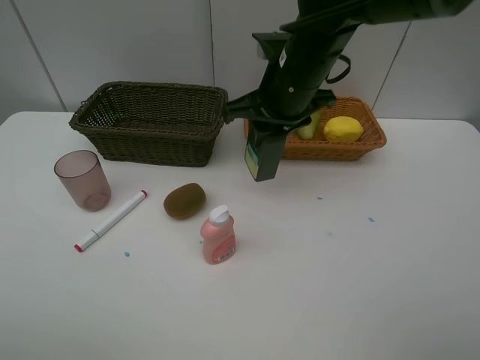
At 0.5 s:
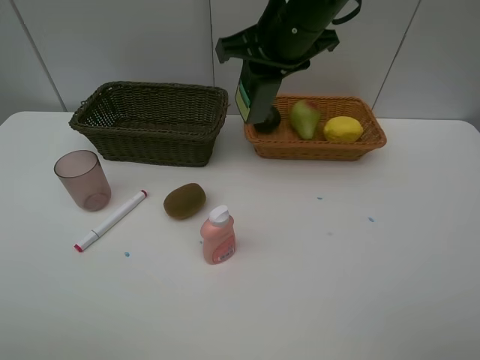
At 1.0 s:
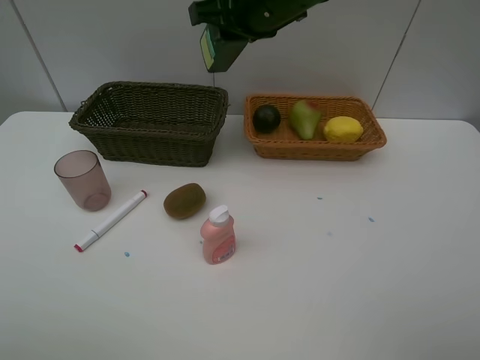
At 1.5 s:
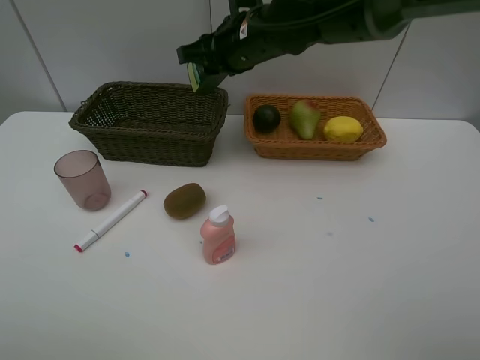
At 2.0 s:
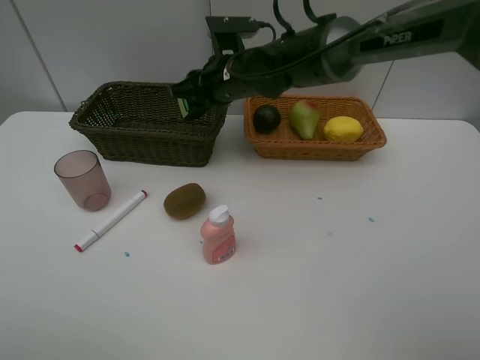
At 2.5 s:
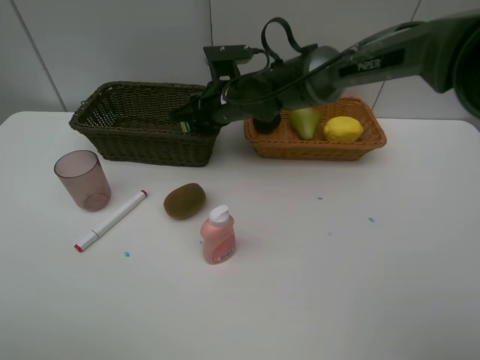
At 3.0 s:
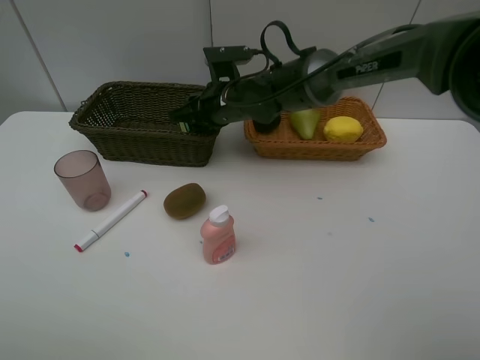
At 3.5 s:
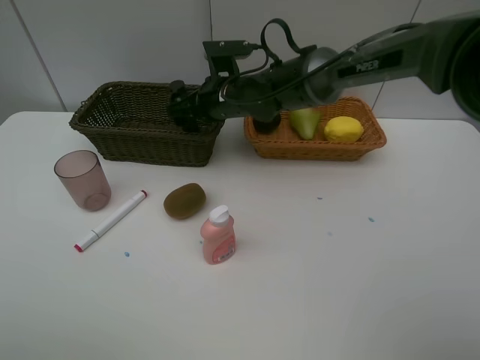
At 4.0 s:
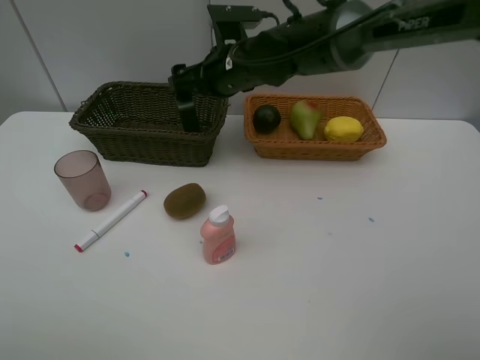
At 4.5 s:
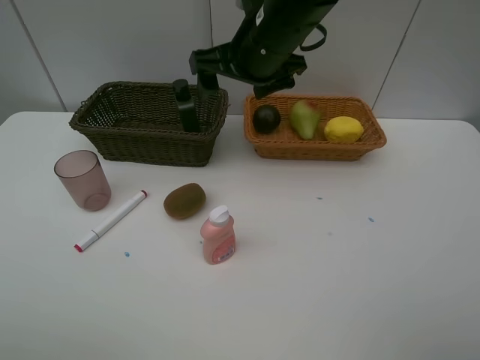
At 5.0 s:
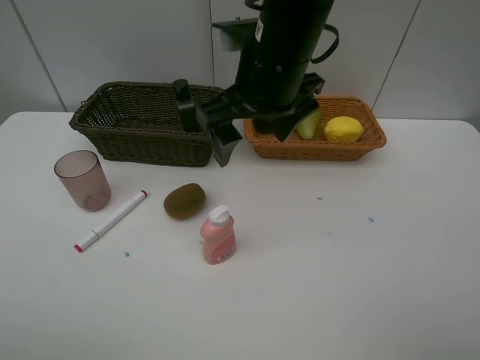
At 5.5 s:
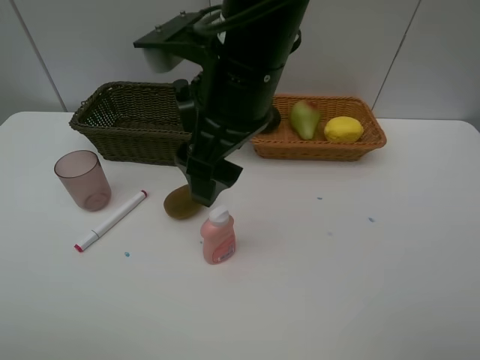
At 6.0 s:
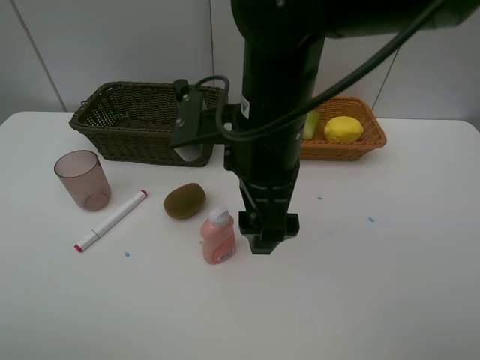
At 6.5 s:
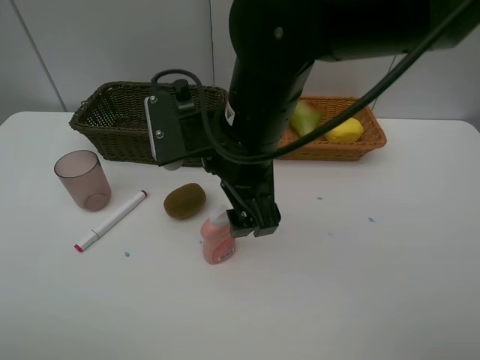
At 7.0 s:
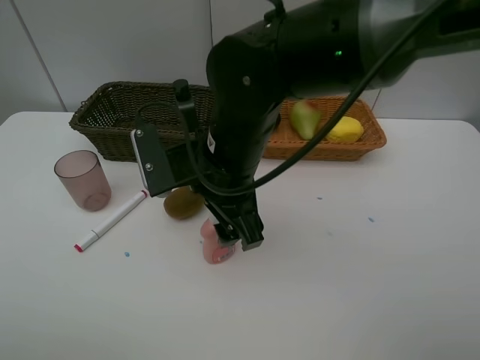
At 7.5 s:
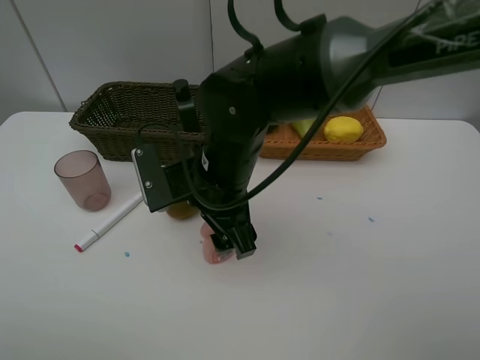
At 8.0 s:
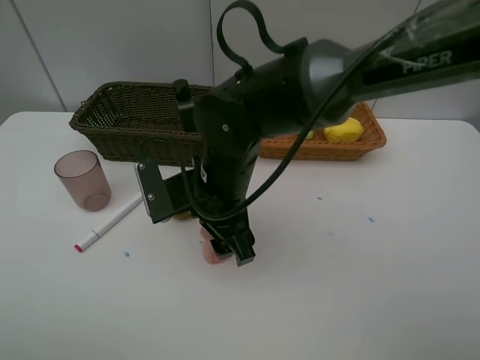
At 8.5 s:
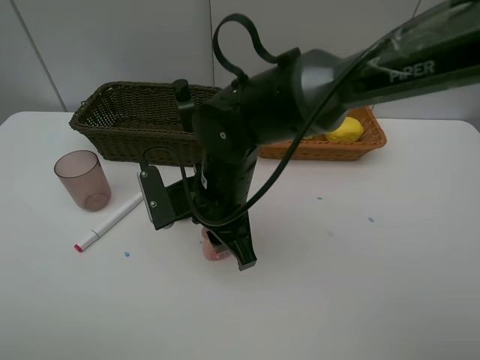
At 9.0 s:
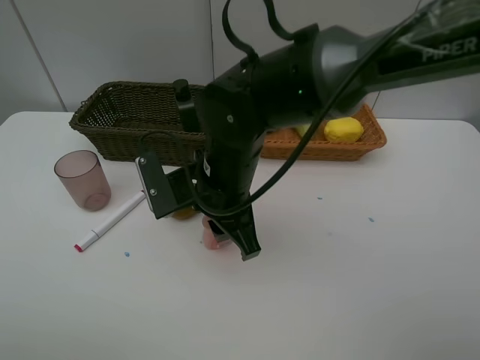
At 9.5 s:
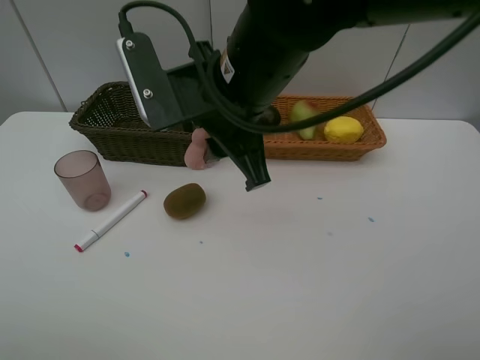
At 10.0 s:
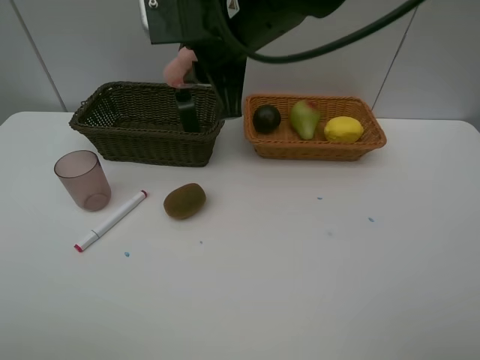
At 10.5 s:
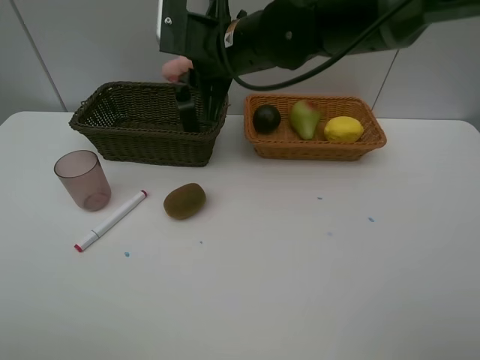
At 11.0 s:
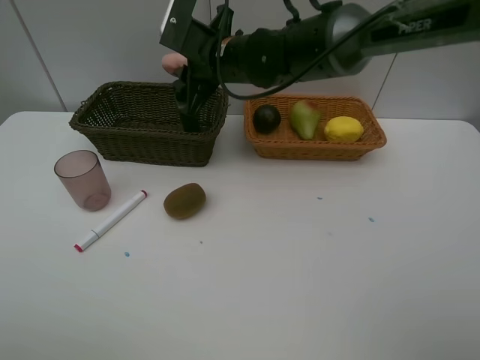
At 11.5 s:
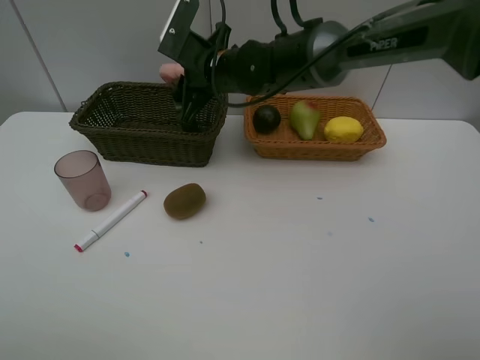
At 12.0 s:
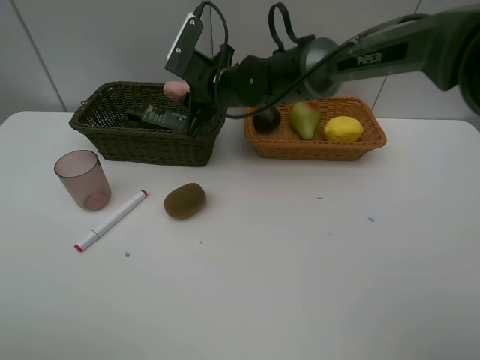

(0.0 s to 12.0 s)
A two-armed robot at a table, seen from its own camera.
Task of the whole recording: Place multiple objects separately in different baskets.
Step, 0.0 s - 4.0 s: Place the hard facial cleanser in the dark basket with right gripper.
Step, 4.5 s - 8.5 s: Pick up the laundry detergent with right gripper.
0.0 s - 2.0 s: The right gripper moves forward, to the left and downward, some 10 cm.
2.0 s - 4.0 s: The right gripper opens.
4.0 s - 6.0 s: The right gripper goes roughly 20 cm backward.
6.0 s - 8.0 s: The right gripper heads downward, covering roughly 10 cm, and closes.
8.0 s - 10.0 s: The right gripper heads upward, covering about 15 cm, and closes its fingers.
10.0 s - 12.0 s: The right gripper goes some 15 cm downward and forward.

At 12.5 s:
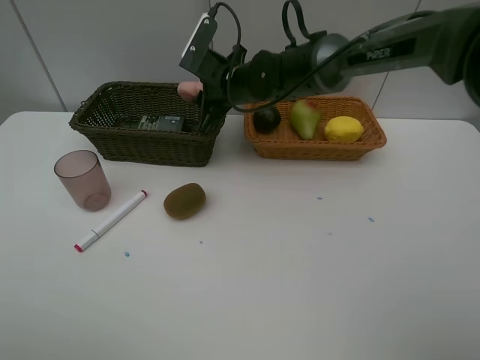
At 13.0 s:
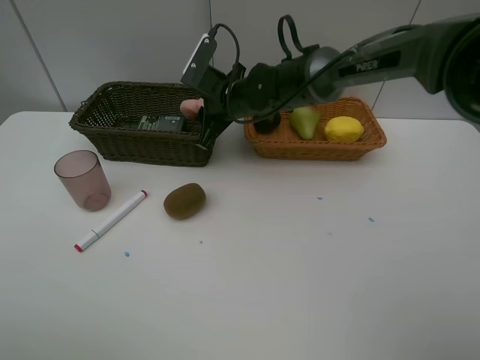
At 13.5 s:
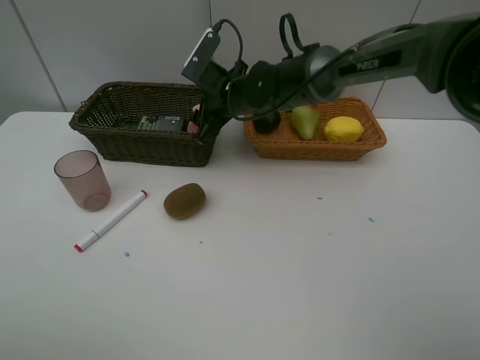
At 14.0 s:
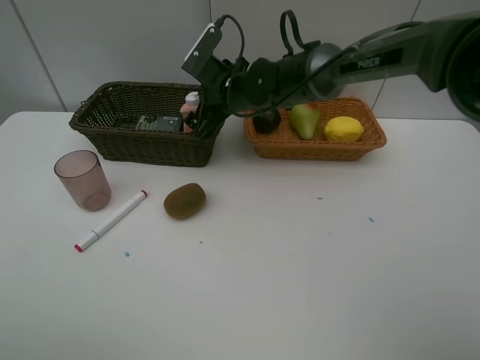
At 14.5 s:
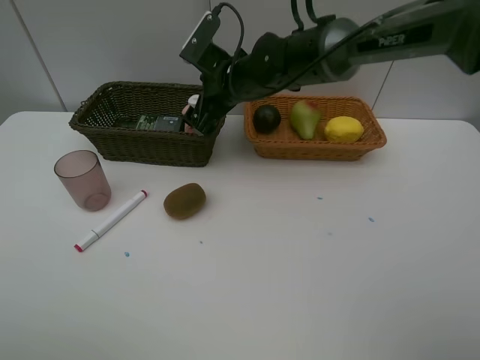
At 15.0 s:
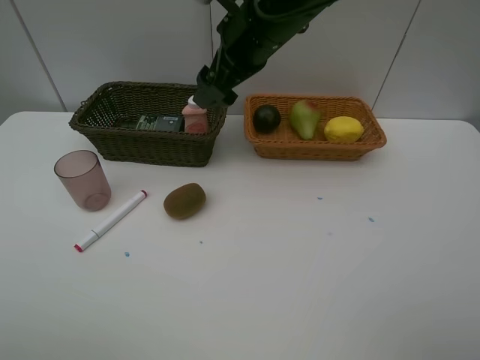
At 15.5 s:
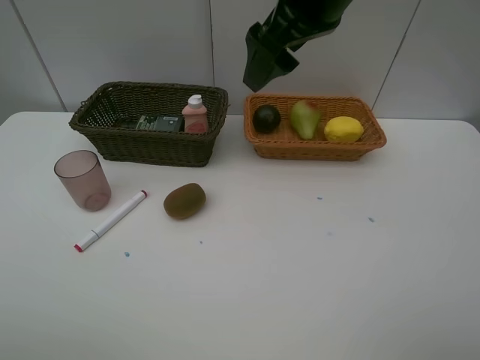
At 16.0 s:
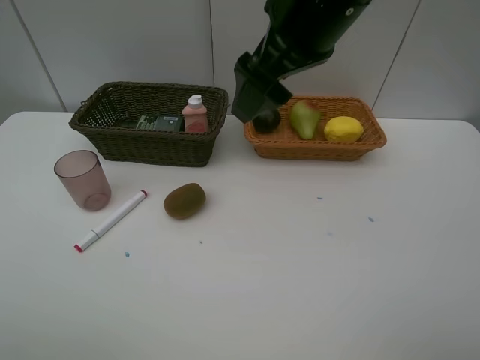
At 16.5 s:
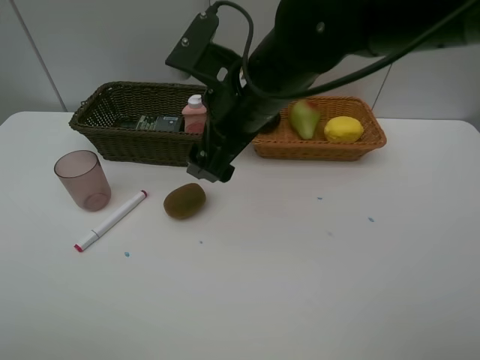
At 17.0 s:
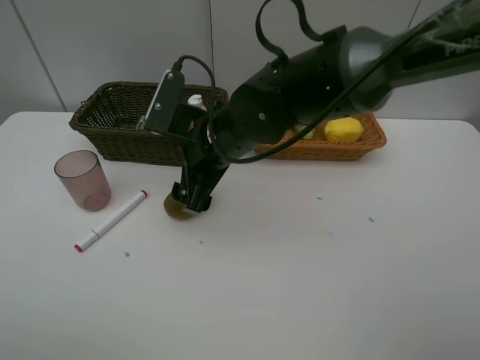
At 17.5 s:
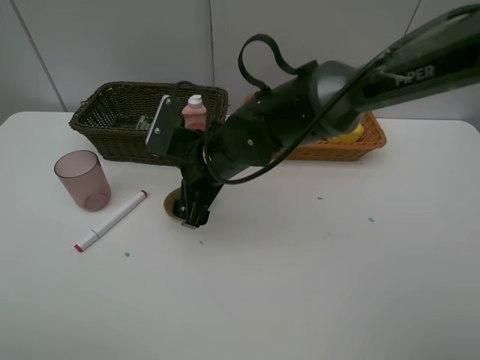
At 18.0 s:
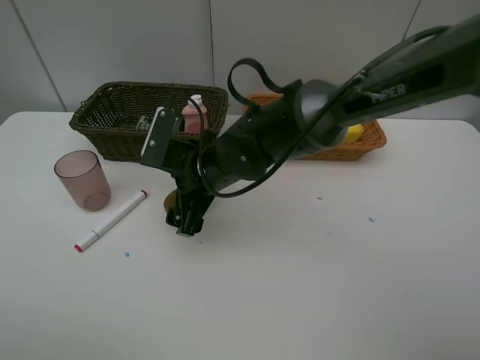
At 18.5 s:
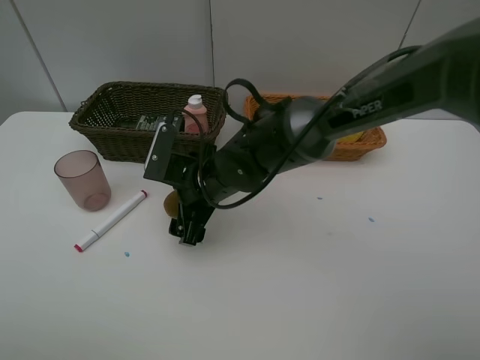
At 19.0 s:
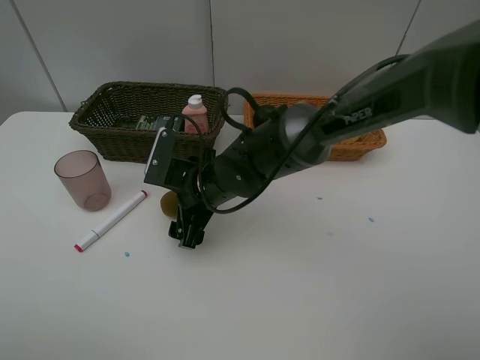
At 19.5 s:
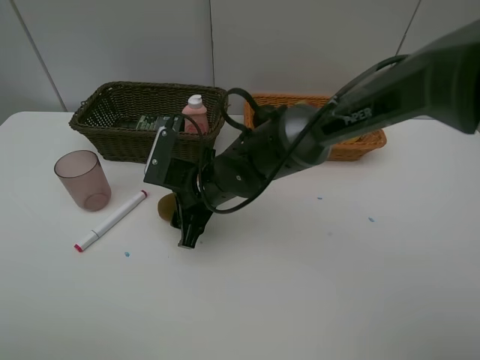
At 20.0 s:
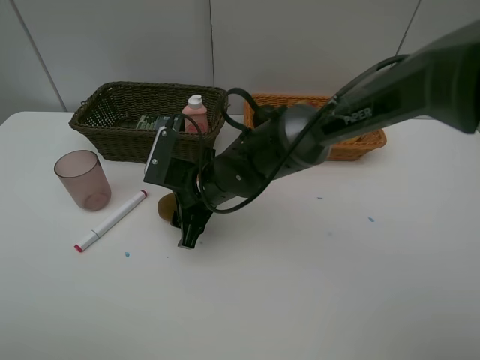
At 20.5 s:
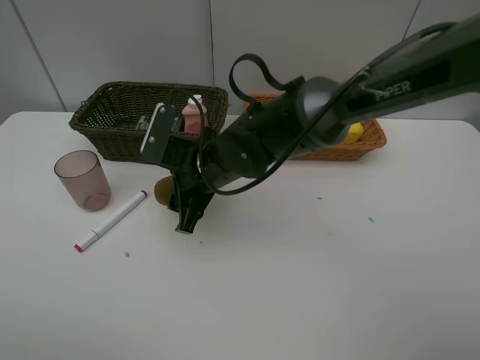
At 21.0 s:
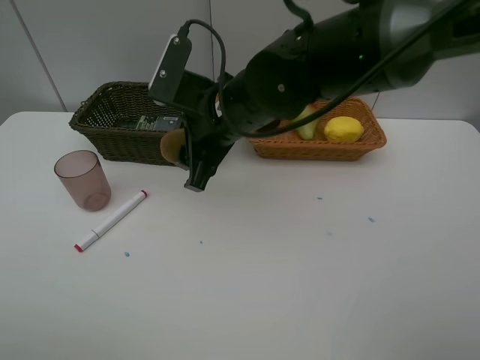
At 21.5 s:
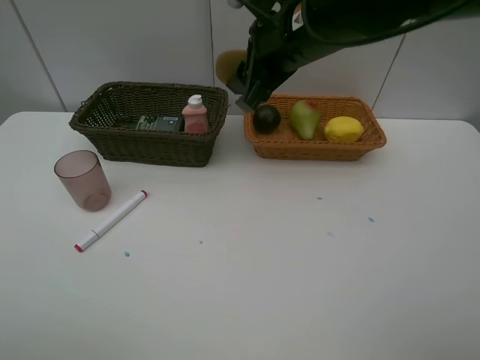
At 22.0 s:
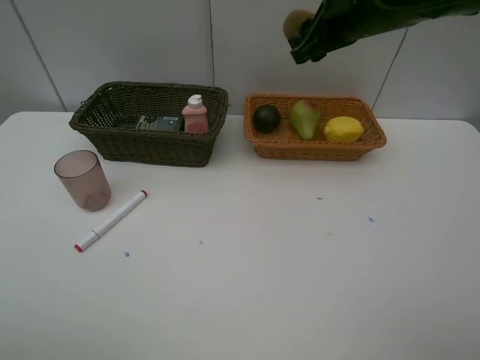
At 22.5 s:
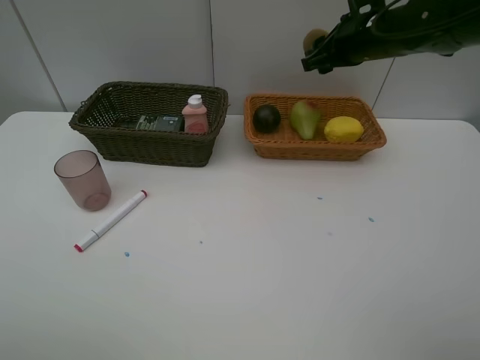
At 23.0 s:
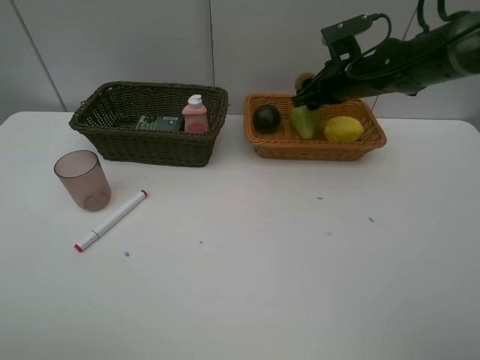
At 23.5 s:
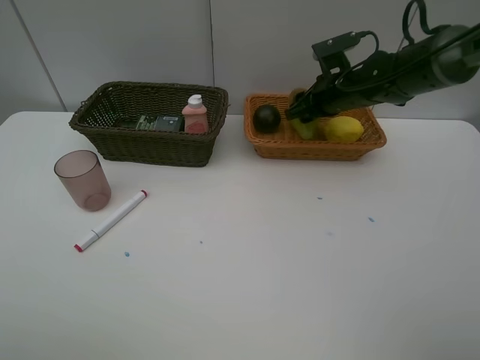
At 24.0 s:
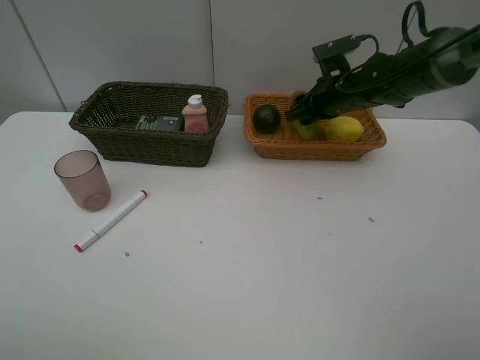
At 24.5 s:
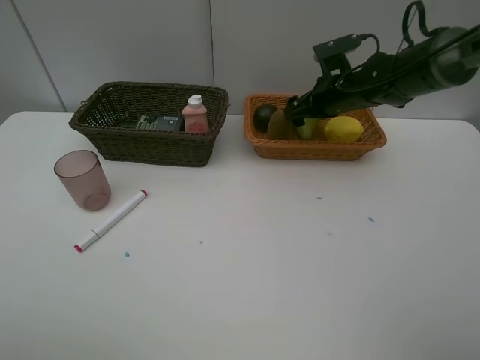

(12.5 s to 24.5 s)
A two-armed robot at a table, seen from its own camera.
Task of the whole recording: Place multiple objects separately in different baskets.
Step, 12.5 s - 14.5 s: Place the laundry detergent in the dark basket with right gripper.
Step, 15.0 s - 20.0 s: Pick up kiwi with right gripper.
12.5 s - 14.5 s: The right gripper opens its fingers.
14.5 s - 16.5 s: The right gripper goes roughly 15 cm backward, and travels upward and back again, roughly 15 cm each way.
16.5 s - 18.5 s: The right gripper goes some 15 cm downward.
18.5 s - 20.5 s: The right gripper closes its fingers.
20.5 s - 22.5 s: The right gripper goes roughly 30 cm to the right, forward and upward.
22.5 s - 24.5 s: The right gripper moves downward, roughly 10 cm, and opens up.

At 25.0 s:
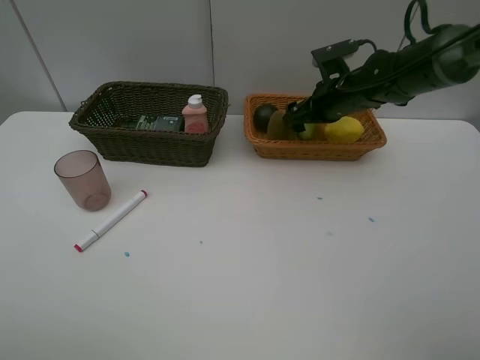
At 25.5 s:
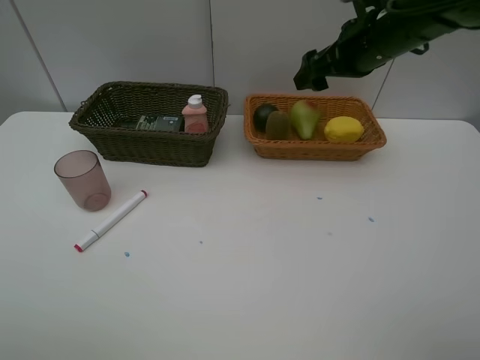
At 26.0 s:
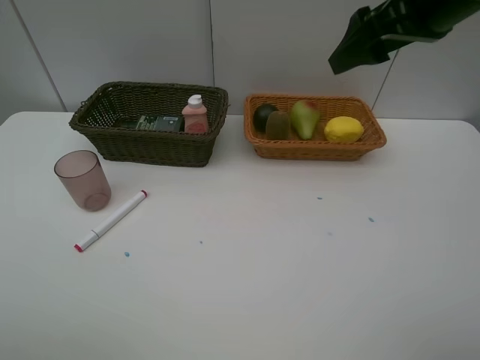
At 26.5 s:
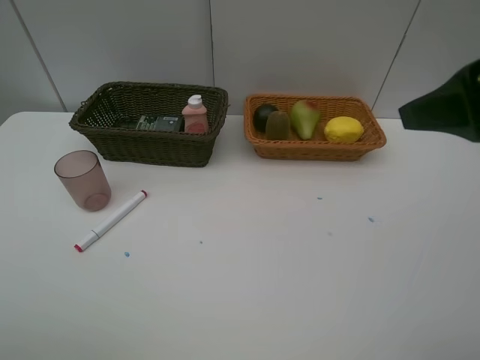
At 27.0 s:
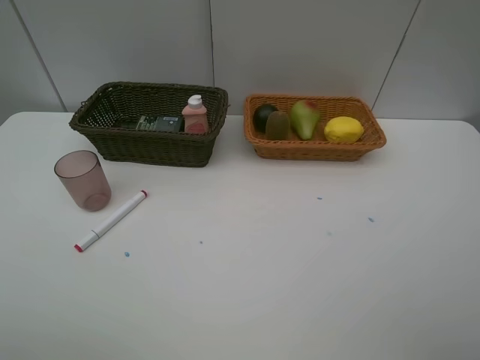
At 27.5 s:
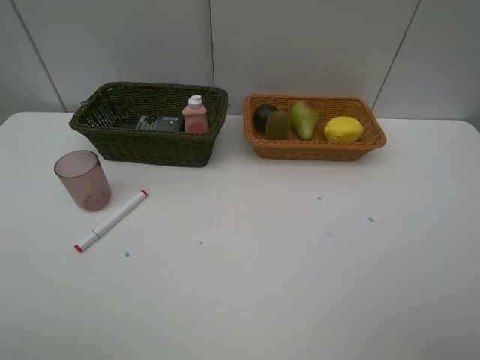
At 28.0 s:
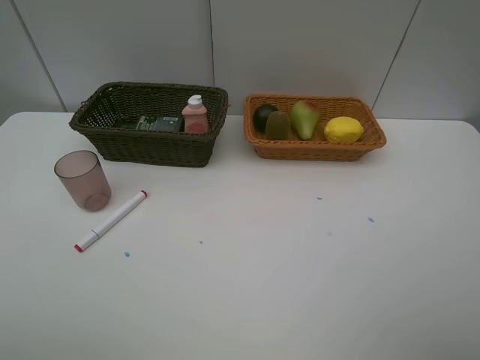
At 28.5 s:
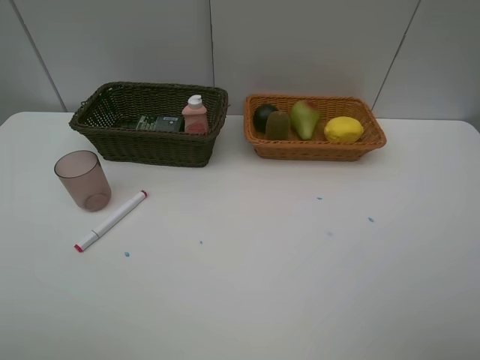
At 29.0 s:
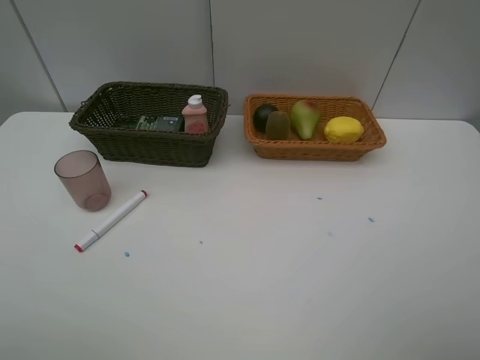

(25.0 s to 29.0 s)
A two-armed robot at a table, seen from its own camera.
Task of the whole recording: Place multiple objects separately in different baskets.
25.0 s - 27.0 s: The right gripper moves backward, approximately 35 cm.
